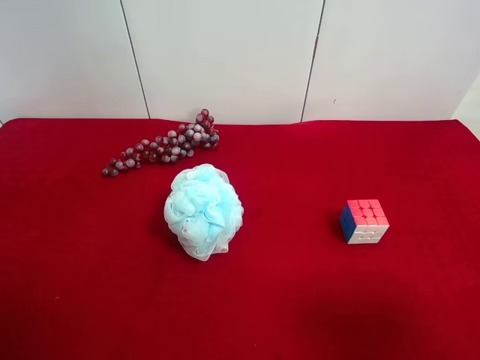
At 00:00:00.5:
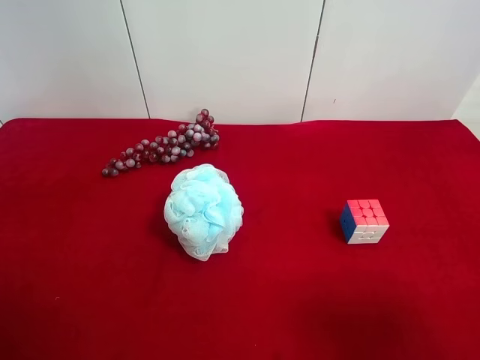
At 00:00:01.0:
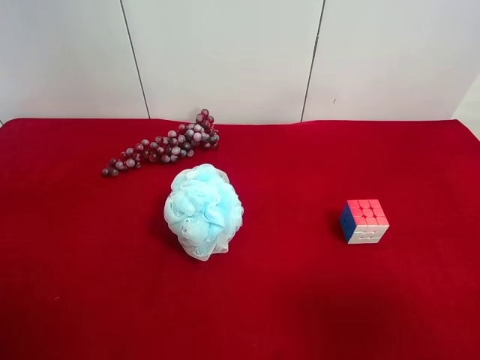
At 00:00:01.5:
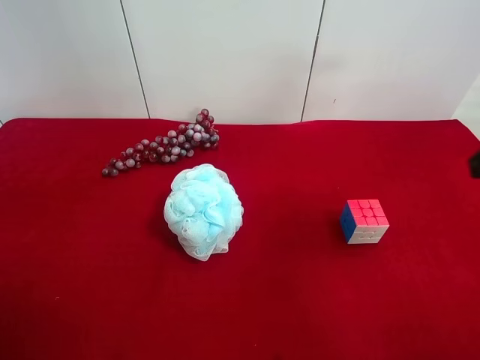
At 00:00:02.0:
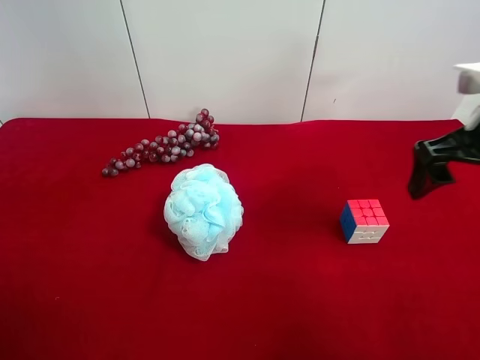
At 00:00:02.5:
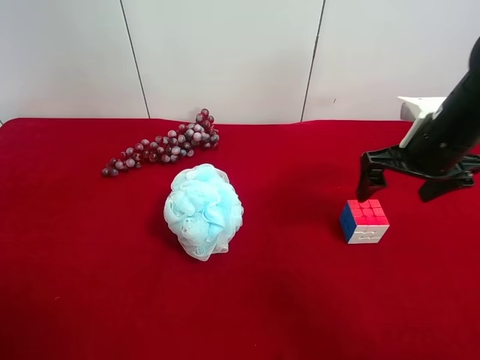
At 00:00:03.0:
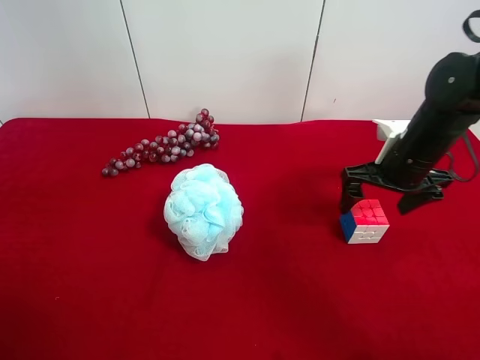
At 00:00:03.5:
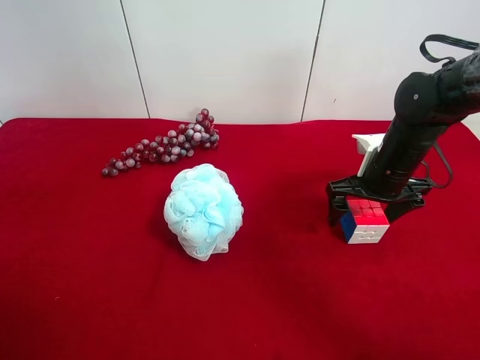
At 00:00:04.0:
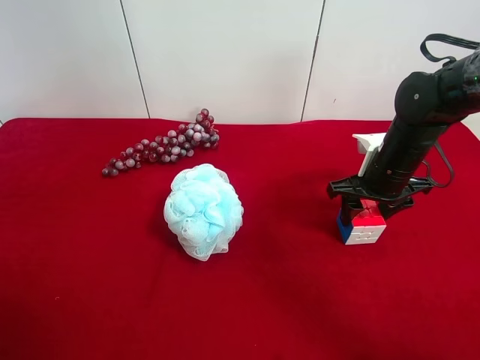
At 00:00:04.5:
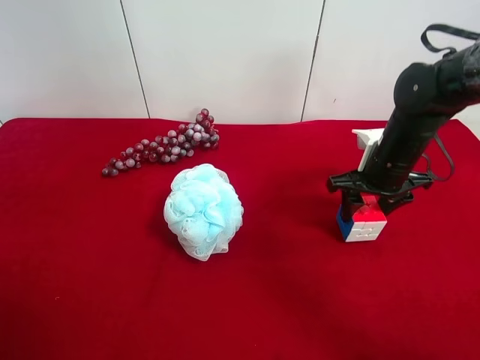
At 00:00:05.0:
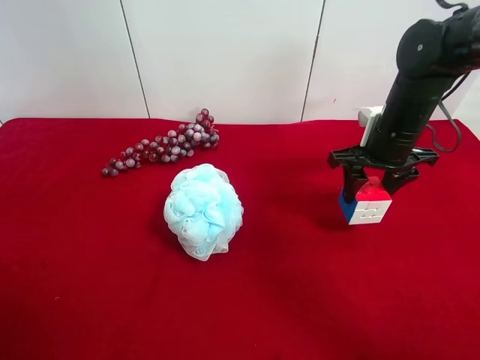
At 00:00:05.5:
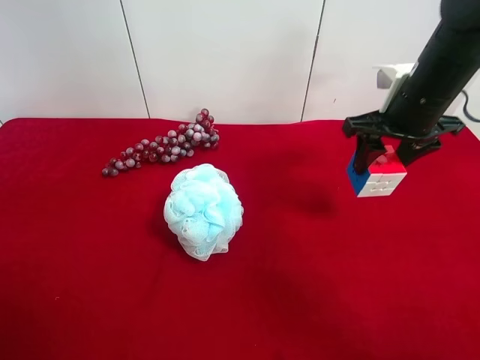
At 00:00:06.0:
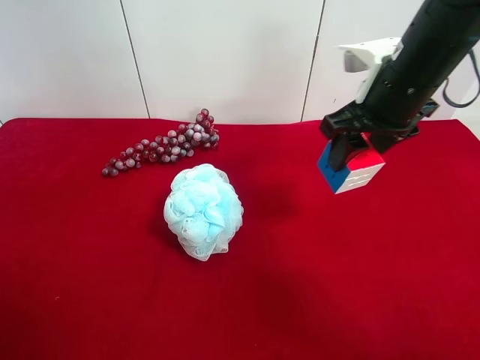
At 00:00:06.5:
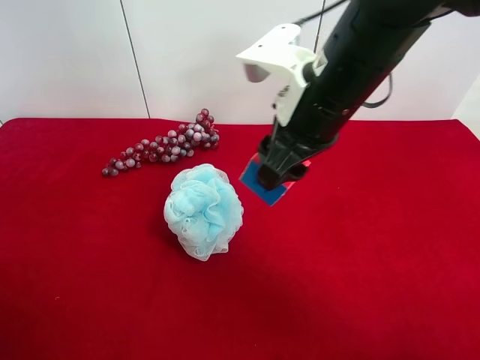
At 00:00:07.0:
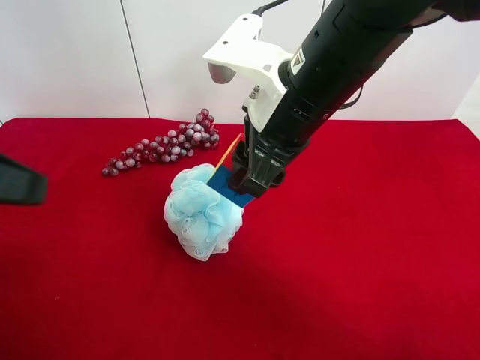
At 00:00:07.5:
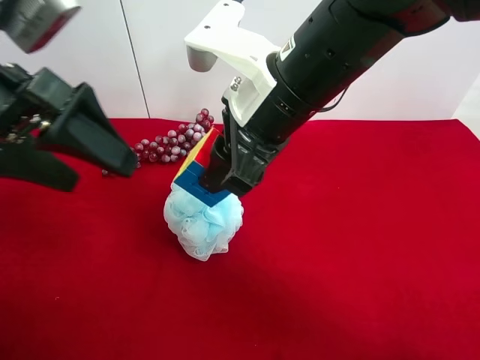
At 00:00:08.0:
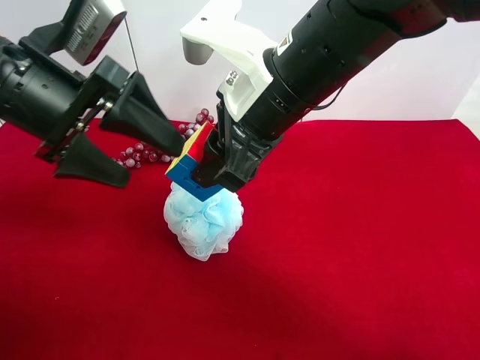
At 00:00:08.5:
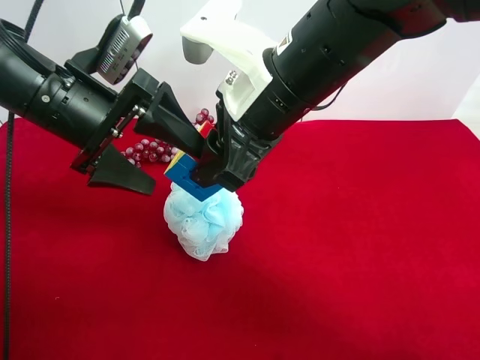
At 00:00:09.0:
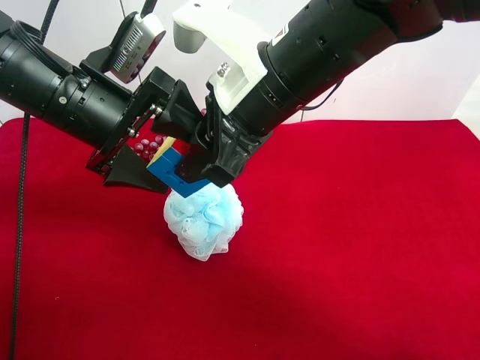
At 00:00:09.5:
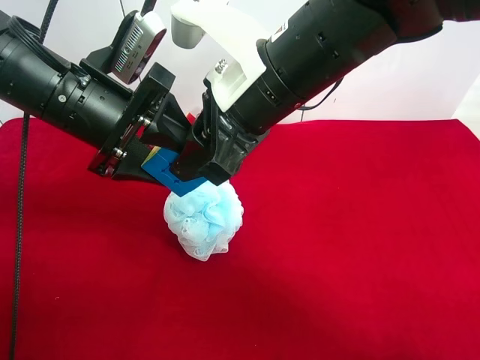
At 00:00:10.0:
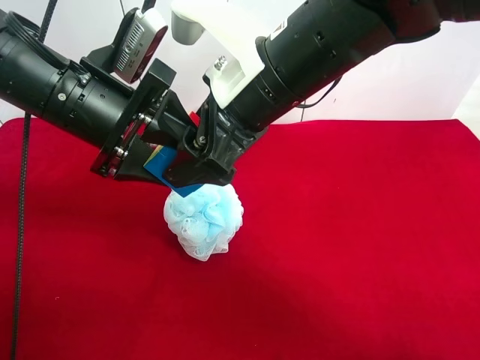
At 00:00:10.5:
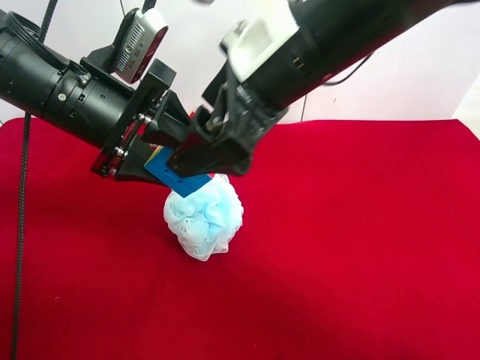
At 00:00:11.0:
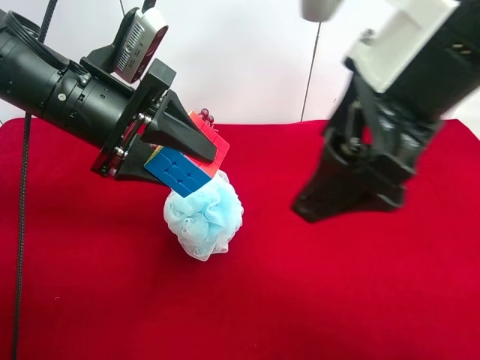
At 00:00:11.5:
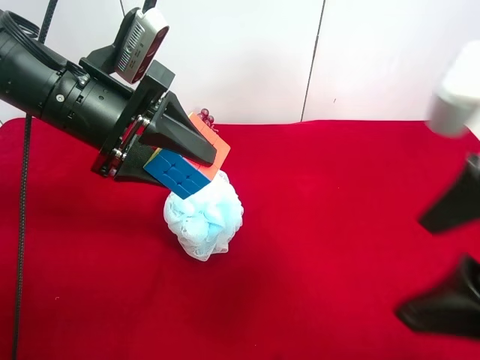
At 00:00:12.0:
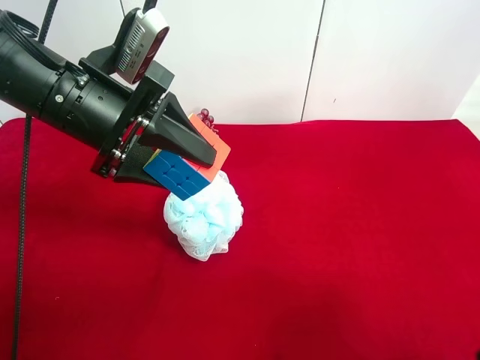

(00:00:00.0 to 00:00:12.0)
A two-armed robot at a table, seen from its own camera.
Task of the whole recording: use the right gripper to pick up the item and transfer it from the right gripper to the left gripper.
Step, 00:00:00.0 - 00:00:04.0: Use the right gripper to grab the Rubik's Cube on the right side of the table.
Step, 00:00:04.5 - 00:00:10.0: Pass the Rubik's Cube to the left gripper.
00:00:00.0 - 00:00:02.0: The right gripper goes about 25 cm forward.
00:00:02.0 - 00:00:04.0: The right gripper goes some 15 cm downward and forward, and closes.
00:00:04.0 - 00:00:06.0: The right gripper goes approximately 15 cm upward.
00:00:06.0 - 00:00:08.0: The right gripper moves to the left and backward, some 15 cm. Meanwhile the left gripper shifts roughly 25 cm forward and to the right.
00:00:08.0 - 00:00:10.0: The right gripper opens up. Meanwhile the left gripper closes its fingers.
00:00:10.0 - 00:00:12.0: The right gripper shifts some 30 cm to the right and backward.

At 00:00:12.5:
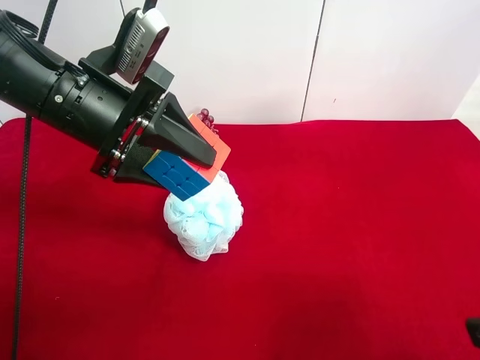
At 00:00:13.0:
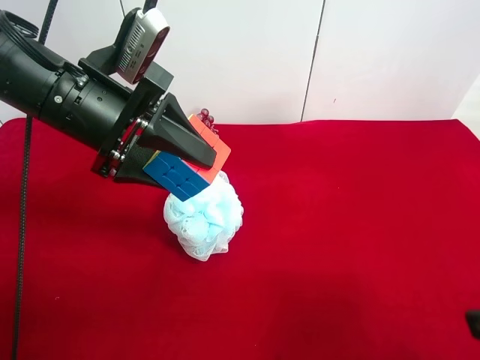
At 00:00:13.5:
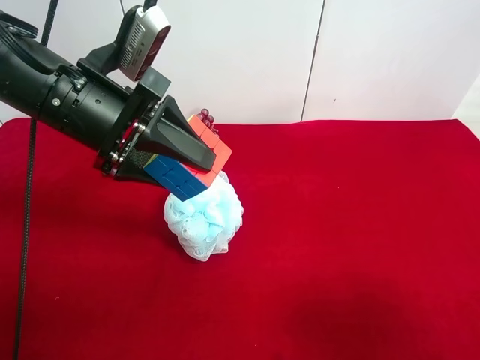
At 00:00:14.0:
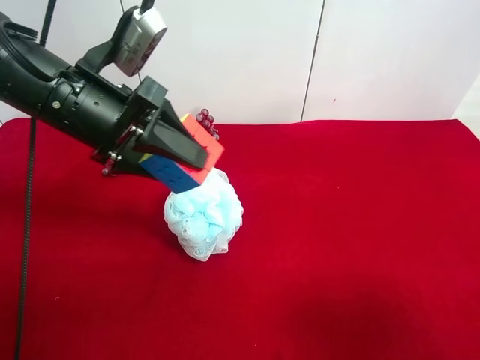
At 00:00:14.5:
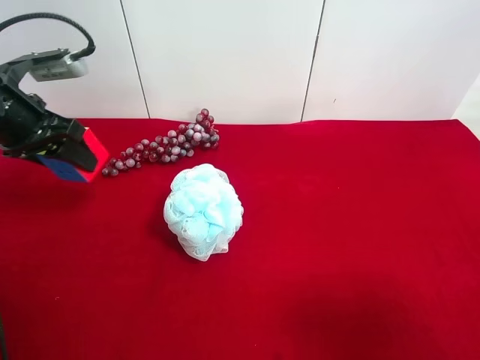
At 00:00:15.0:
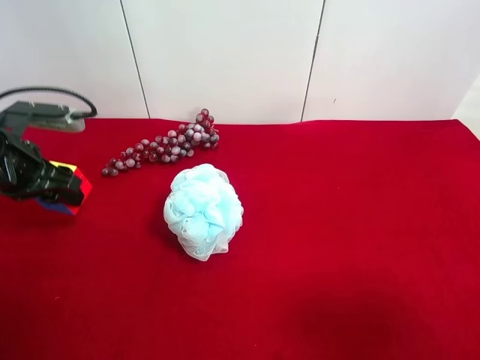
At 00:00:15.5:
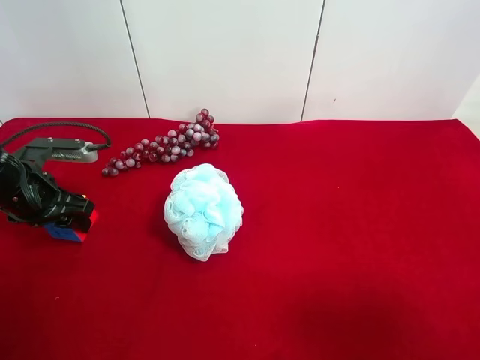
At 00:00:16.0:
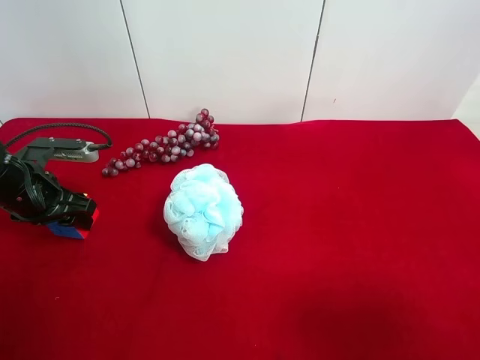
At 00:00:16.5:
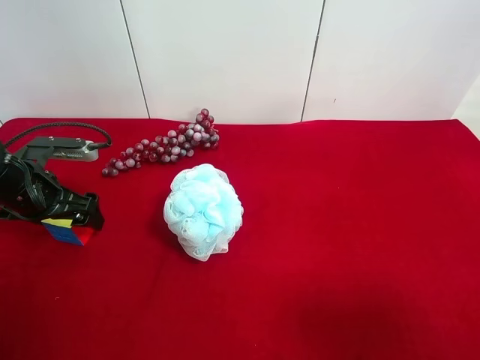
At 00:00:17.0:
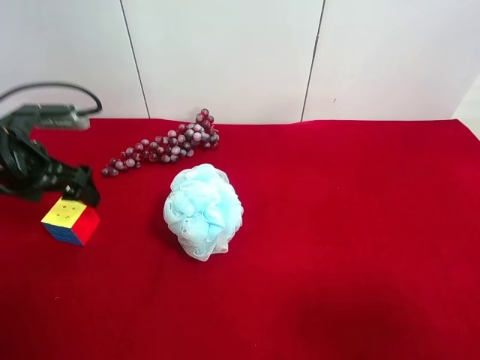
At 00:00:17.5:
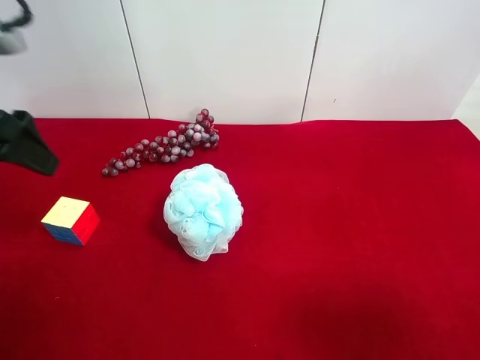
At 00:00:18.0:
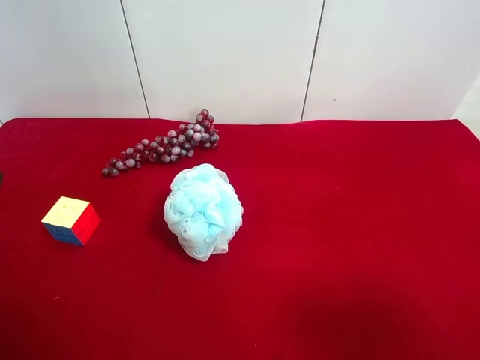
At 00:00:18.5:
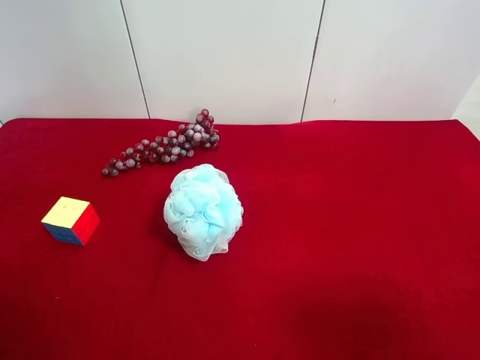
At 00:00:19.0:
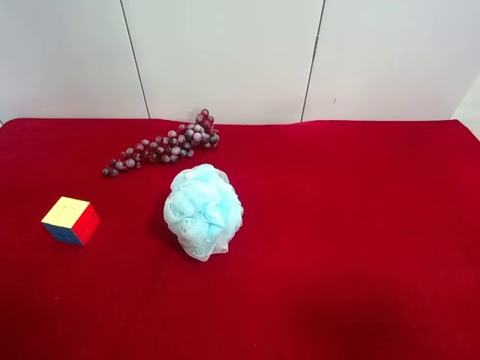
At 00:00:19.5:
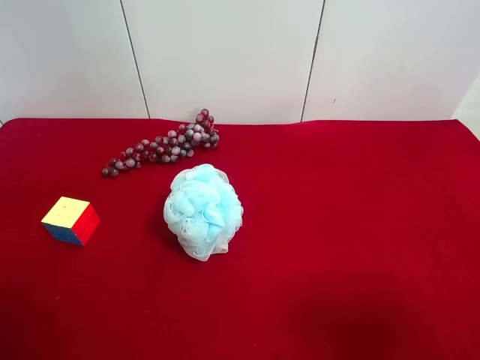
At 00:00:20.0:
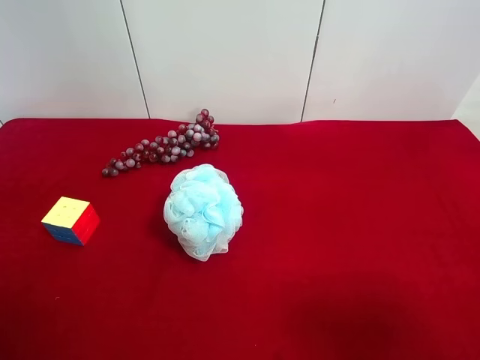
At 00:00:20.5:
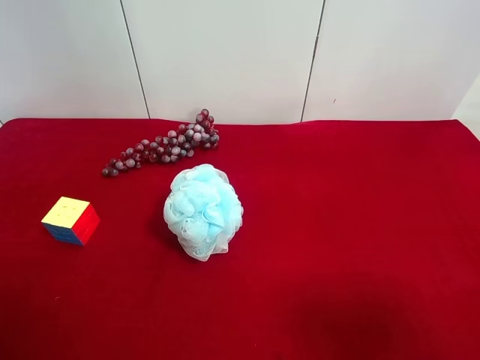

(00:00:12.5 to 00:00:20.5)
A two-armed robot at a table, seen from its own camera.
Task of the whole recording: use the right gripper to pick up the item and transfer it from the right gripper to the left gripper.
Step, 00:00:12.5 - 00:00:16.5: The left gripper places Rubik's Cube on the left side of the table.
00:00:12.5 - 00:00:14.5: The left gripper heads to the left, covering about 15 cm.
00:00:14.5 - 00:00:16.5: The left gripper heads downward, covering approximately 10 cm, and opens its fingers.
00:00:16.5 - 00:00:18.5: The left gripper travels backward and upward by about 30 cm.
